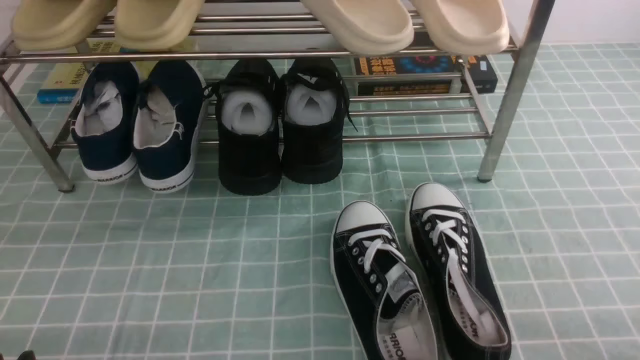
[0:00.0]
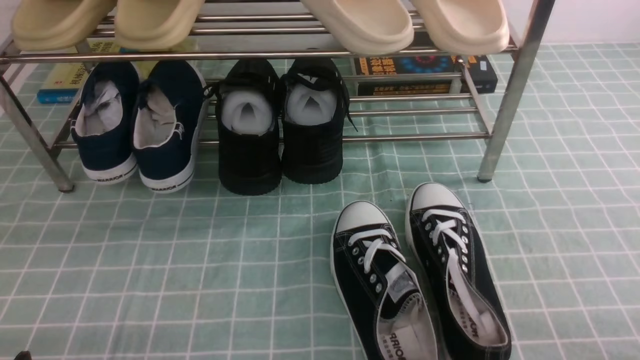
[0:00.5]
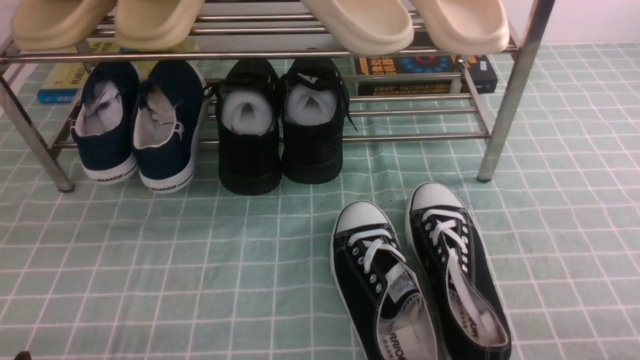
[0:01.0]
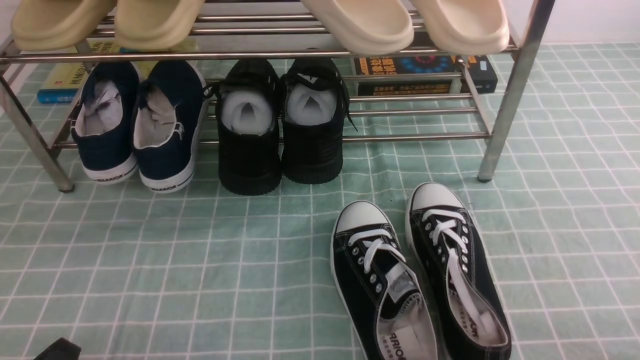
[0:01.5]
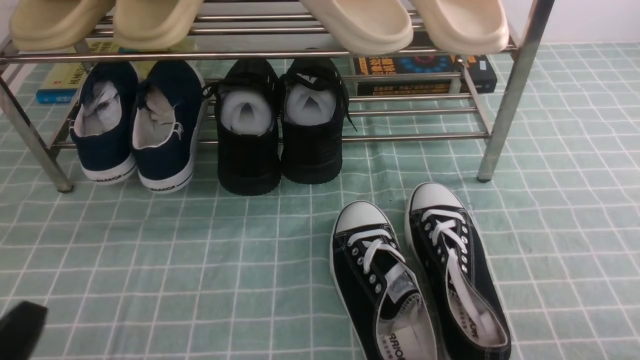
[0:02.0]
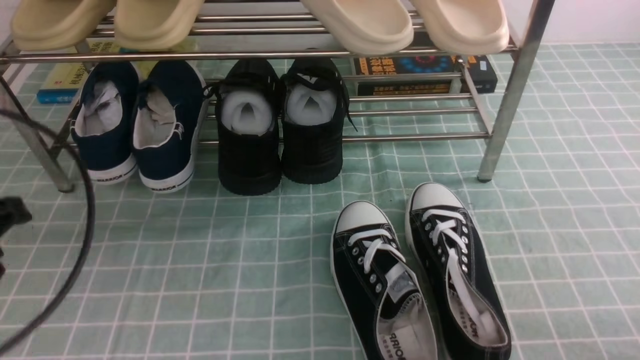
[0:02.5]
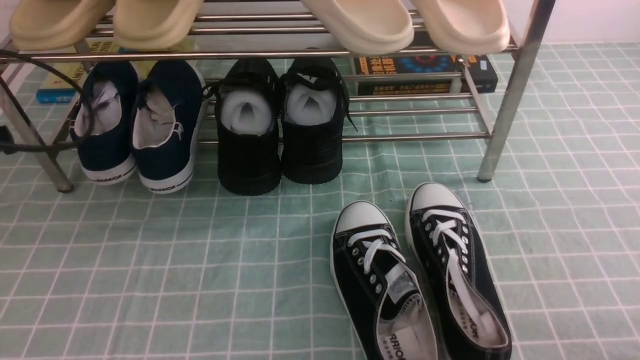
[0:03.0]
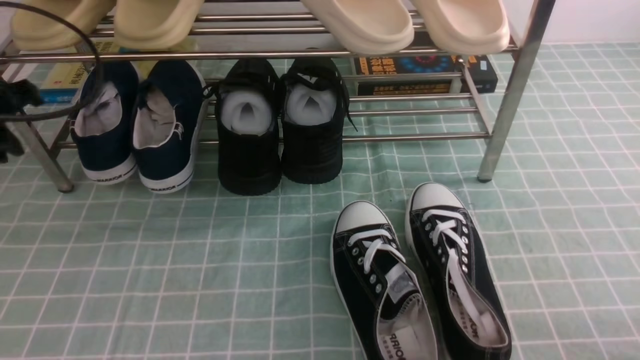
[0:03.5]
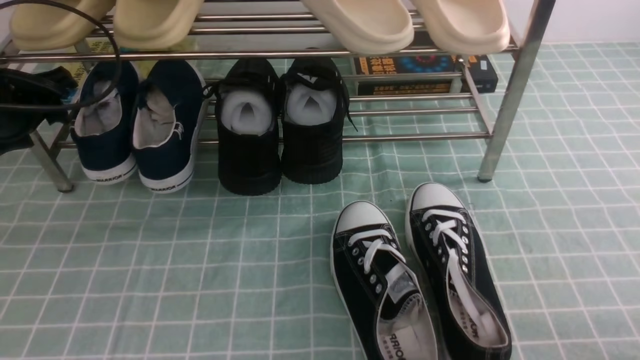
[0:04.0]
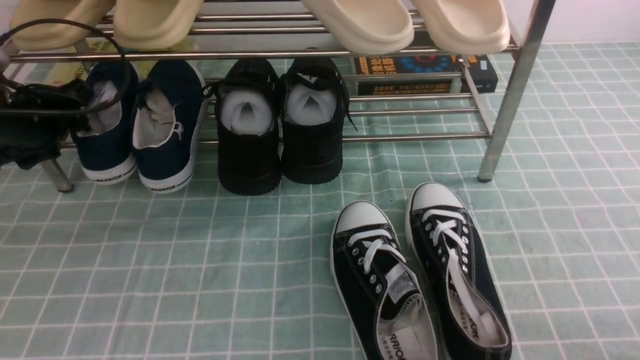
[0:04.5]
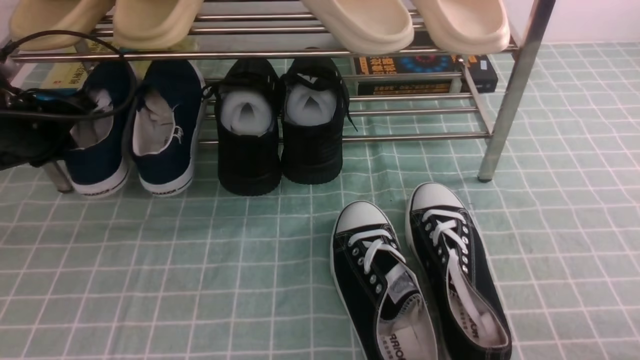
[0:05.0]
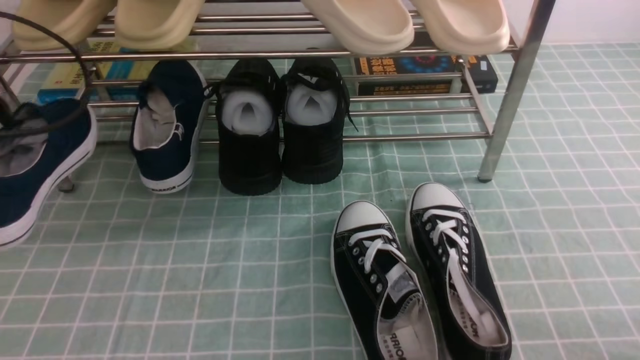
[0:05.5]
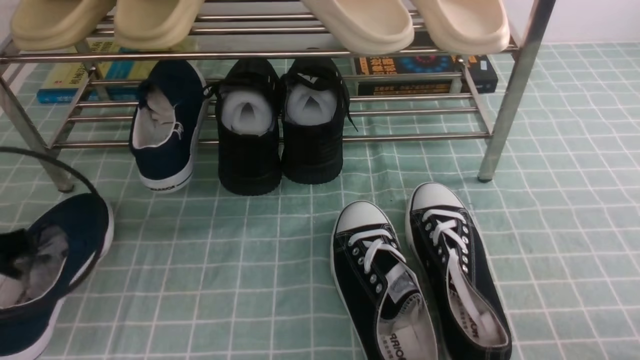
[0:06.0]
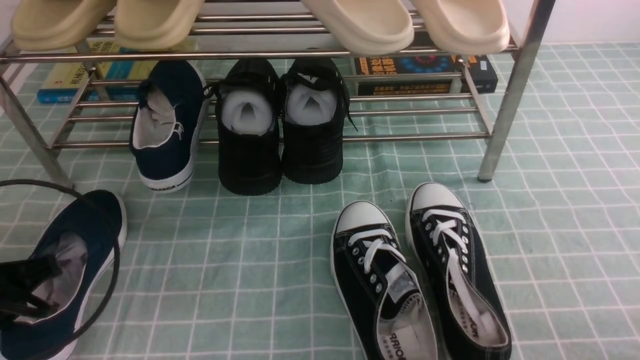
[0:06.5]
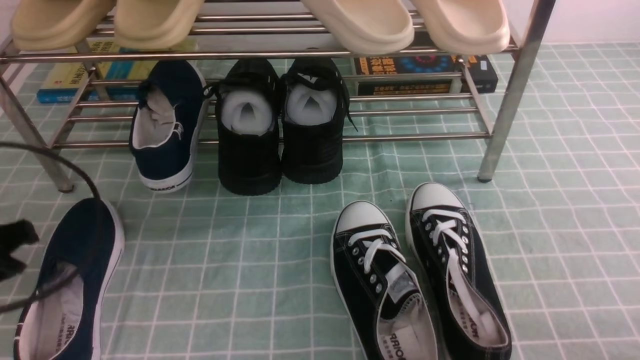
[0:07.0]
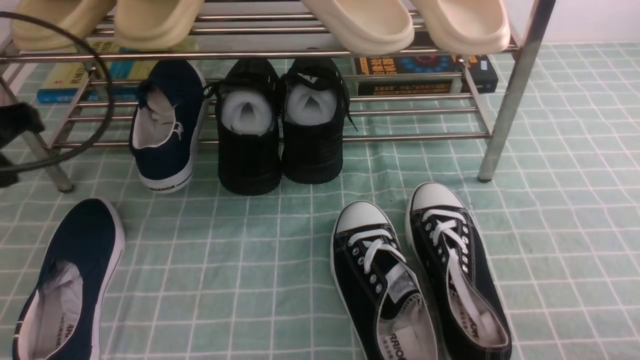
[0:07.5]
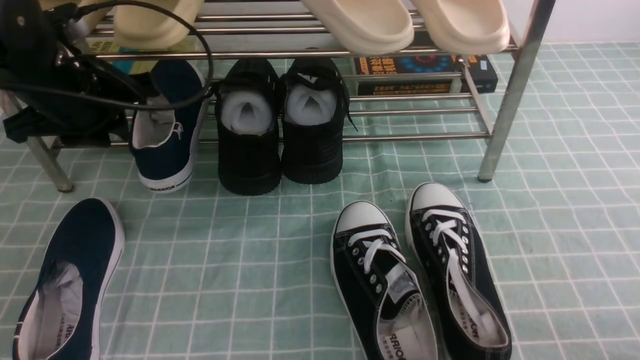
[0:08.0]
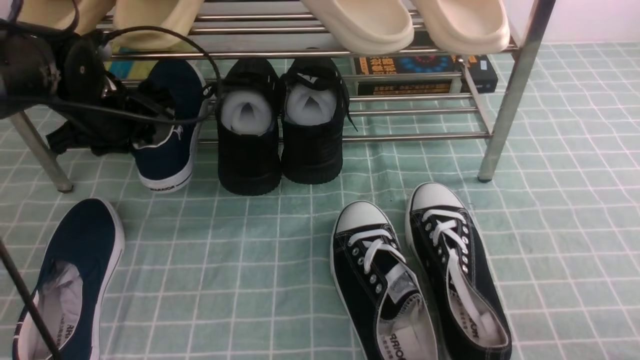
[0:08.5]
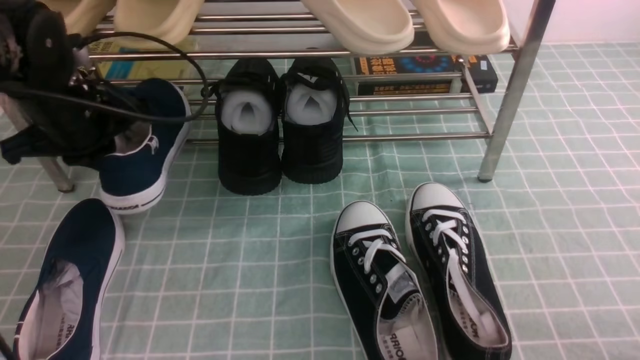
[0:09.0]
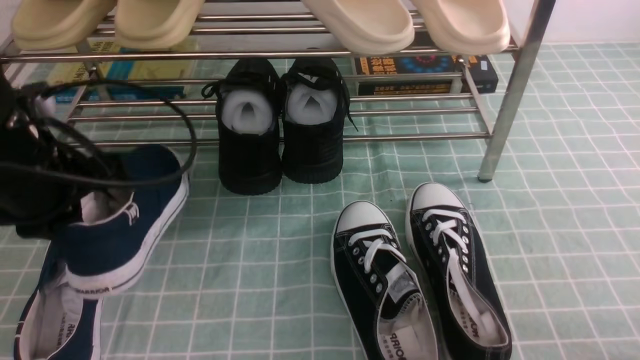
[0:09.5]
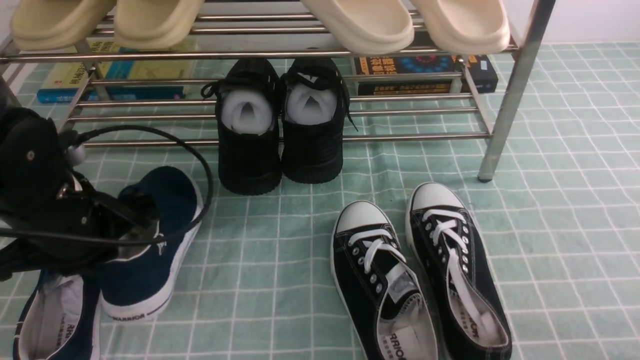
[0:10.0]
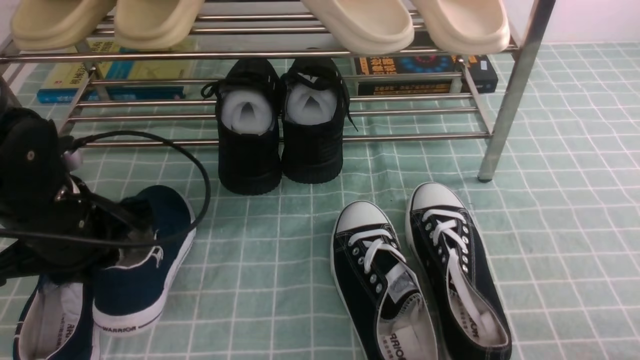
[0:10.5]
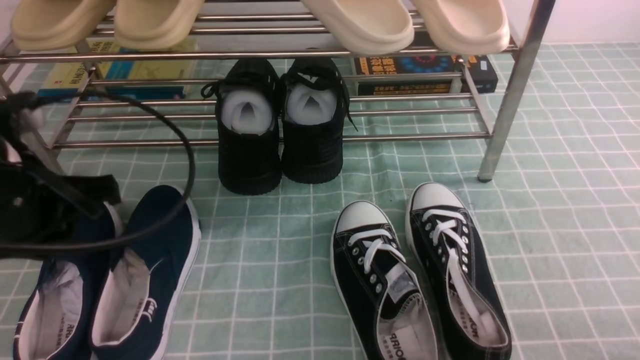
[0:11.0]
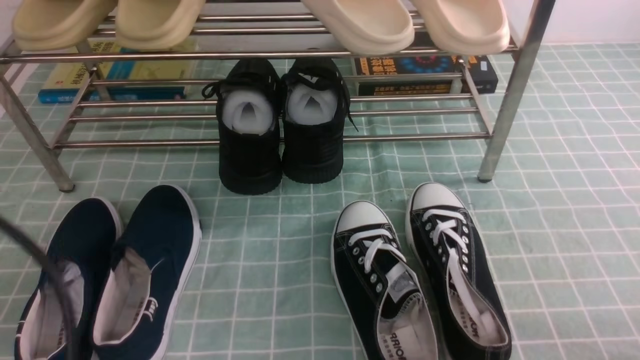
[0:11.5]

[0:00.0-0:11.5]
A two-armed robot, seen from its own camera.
Step, 0:00.0 to 0:05.0: use the left arm to clamp a shoe on the left side of the shoe rack.
Step, 0:05.5 to 0:07.0: Use your left arm to remove the clamped shoe from the shoe rack and put it down.
Step, 0:07.5 to 0:08.5: use the left arm to clamp a shoe on the left side of the shoe rack.
Step, 0:09.0 to 0:10.5: Use your left arm to remove the clamped shoe from the shoe rack and put it down.
0:00.0 to 0:02.0: The left gripper is displaced upward by about 5 cm.
0:02.0 to 0:04.0: The left gripper is displaced forward by roughly 30 cm, and opens.
0:04.0 to 0:06.0: The left gripper travels backward by some 15 cm, and closes up.
0:06.0 to 0:07.5: The left gripper moves upward and forward, about 10 cm, and opens, then closes again.
0:07.5 to 0:09.5: The left gripper goes forward and returns, some 15 cm each way, and opens, then closes once more.
0:09.5 to 0:11.5: The left gripper heads backward, covering approximately 20 cm.

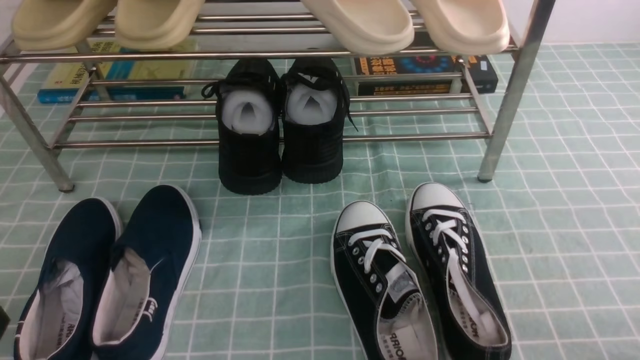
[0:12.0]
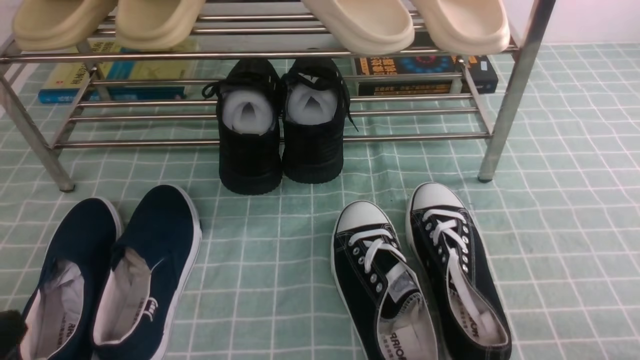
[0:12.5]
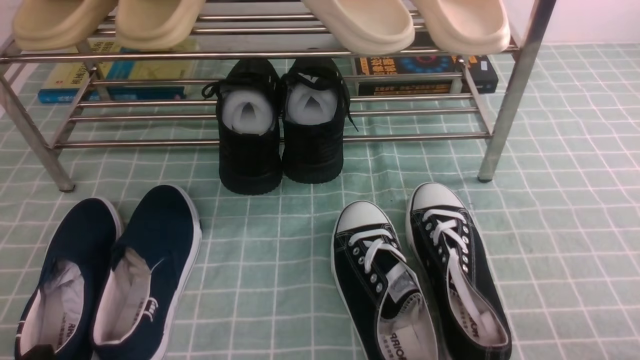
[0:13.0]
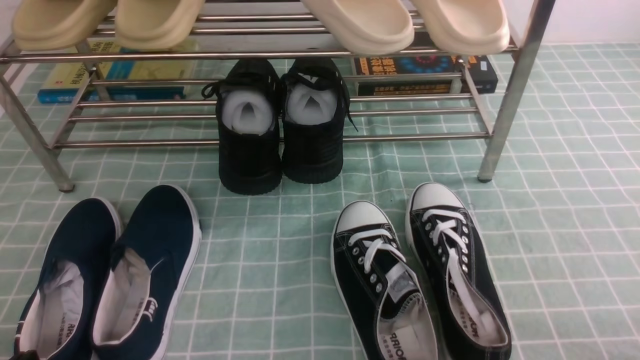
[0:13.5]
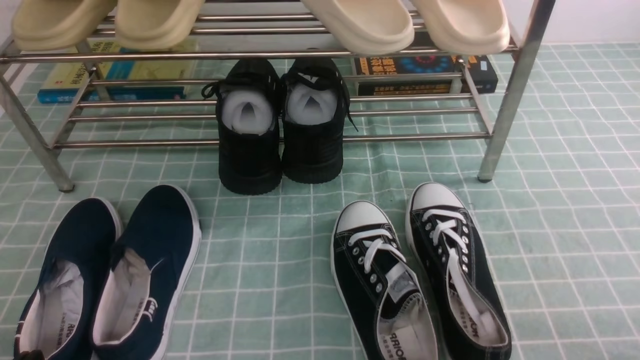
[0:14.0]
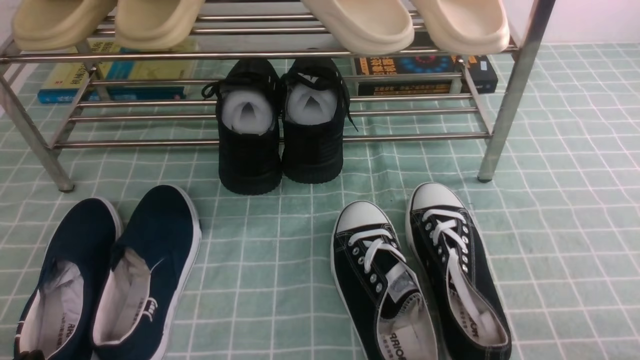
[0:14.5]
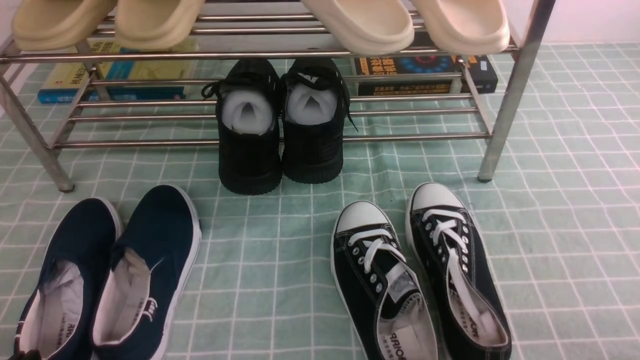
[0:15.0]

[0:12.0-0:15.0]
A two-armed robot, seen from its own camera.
0:12.0 to 0:13.5: The left gripper moves downward, some 10 cm.
0:13.5 to 0:15.0: Neither gripper changes place.
